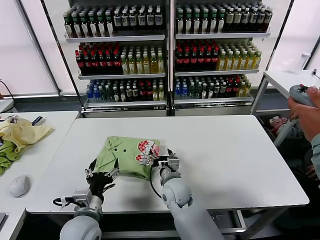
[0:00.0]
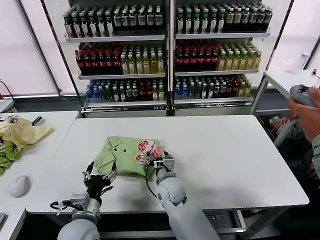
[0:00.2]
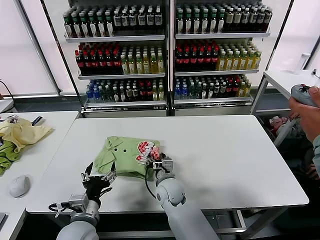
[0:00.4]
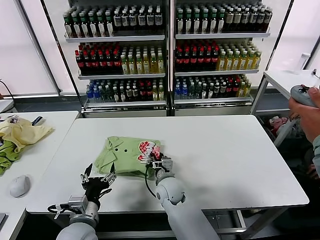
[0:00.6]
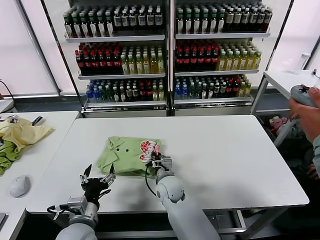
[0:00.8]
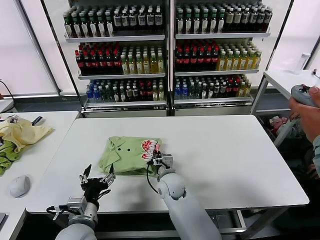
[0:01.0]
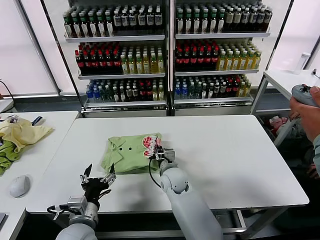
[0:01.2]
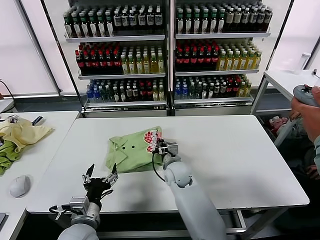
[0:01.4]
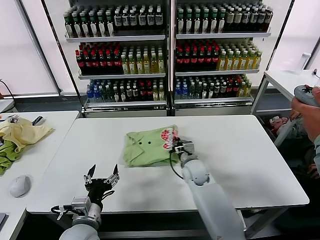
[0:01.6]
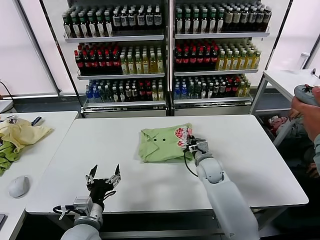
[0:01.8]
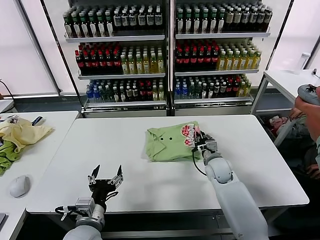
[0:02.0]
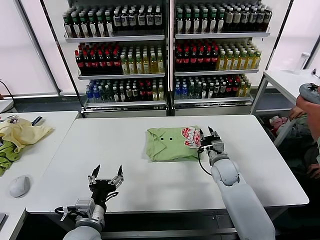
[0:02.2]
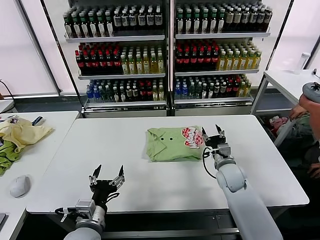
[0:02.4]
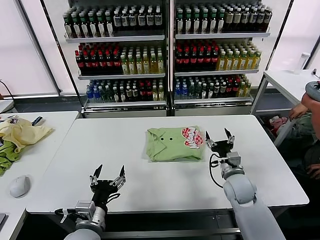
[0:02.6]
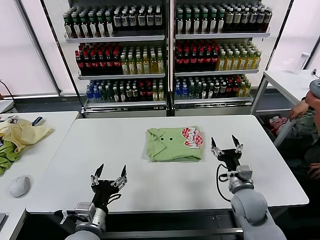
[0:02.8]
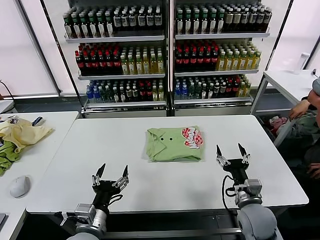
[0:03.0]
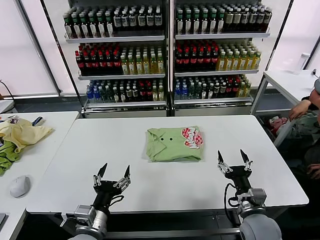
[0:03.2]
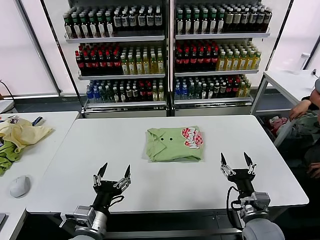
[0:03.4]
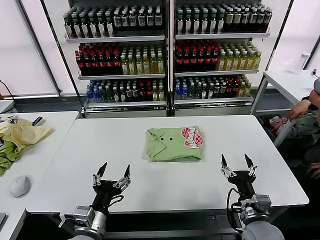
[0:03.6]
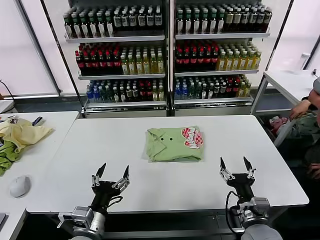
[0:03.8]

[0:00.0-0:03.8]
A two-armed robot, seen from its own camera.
Task of the whole recording: fold and organize the clothes.
Step, 0:00.0 to 0:02.2: Drag the clothes to the center of the table.
0:00.0 to 0:01.2: The right gripper moves about 5 cm, and closes.
0:01.2 to 0:02.6: The right gripper shifts roughly 20 cm to the right, and opens its fingers.
0:02.6 to 0:03.8: The right gripper is displaced backward by about 15 cm.
